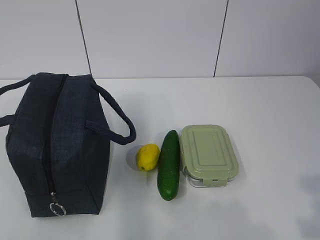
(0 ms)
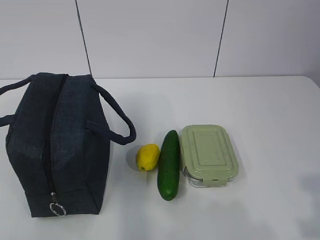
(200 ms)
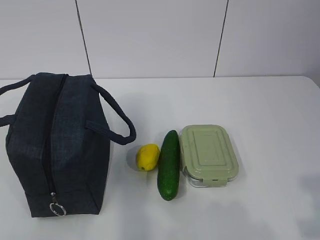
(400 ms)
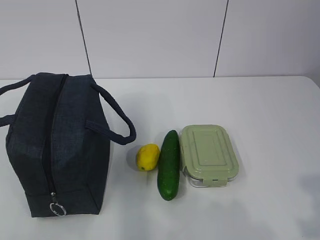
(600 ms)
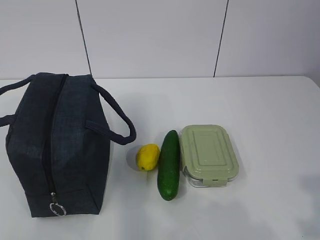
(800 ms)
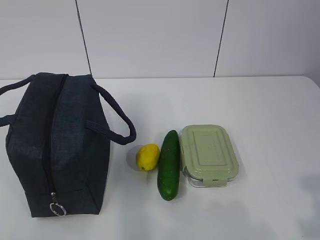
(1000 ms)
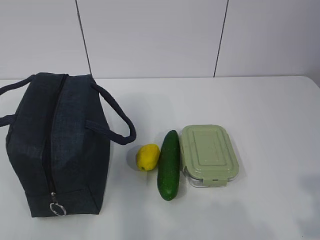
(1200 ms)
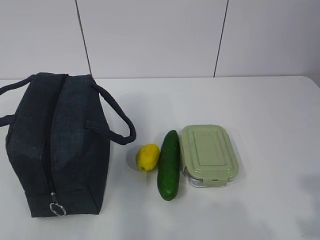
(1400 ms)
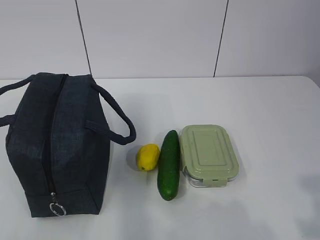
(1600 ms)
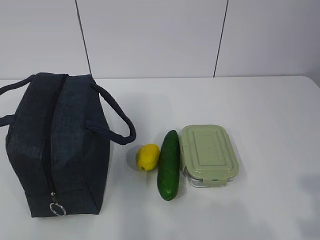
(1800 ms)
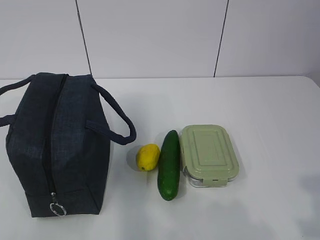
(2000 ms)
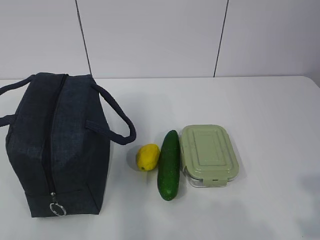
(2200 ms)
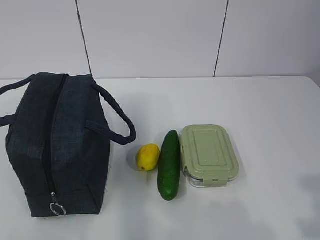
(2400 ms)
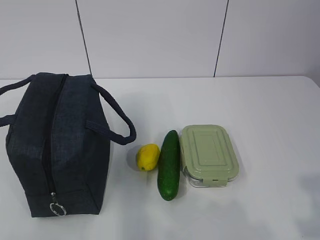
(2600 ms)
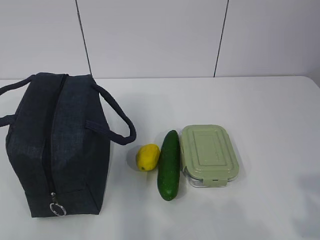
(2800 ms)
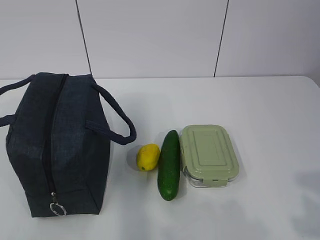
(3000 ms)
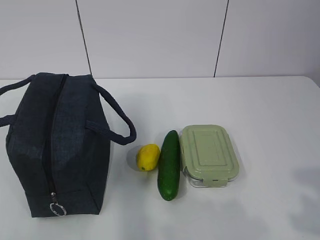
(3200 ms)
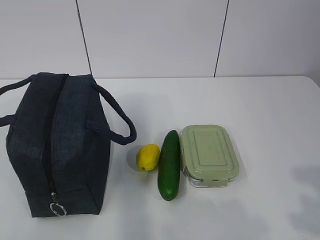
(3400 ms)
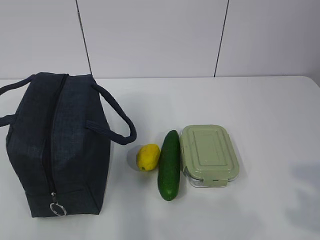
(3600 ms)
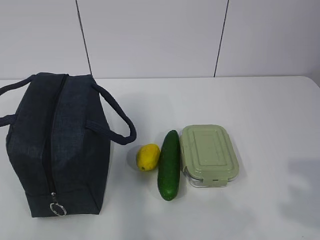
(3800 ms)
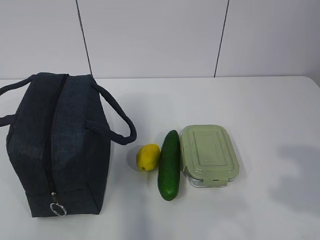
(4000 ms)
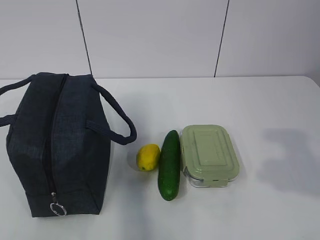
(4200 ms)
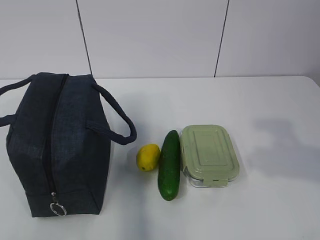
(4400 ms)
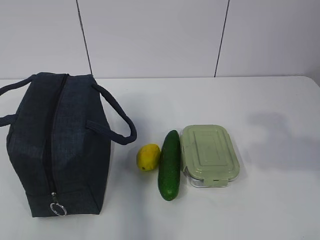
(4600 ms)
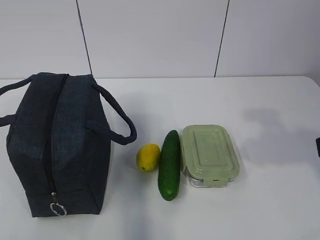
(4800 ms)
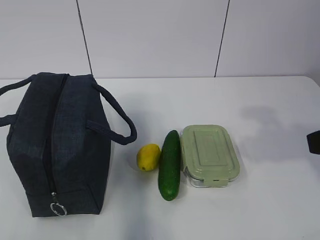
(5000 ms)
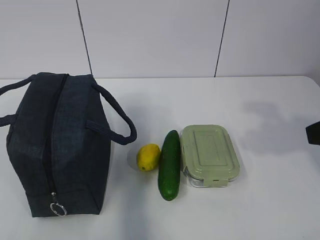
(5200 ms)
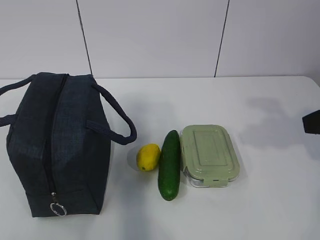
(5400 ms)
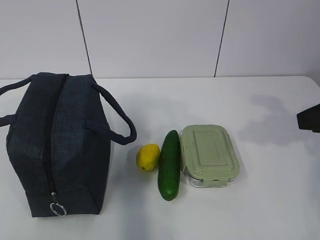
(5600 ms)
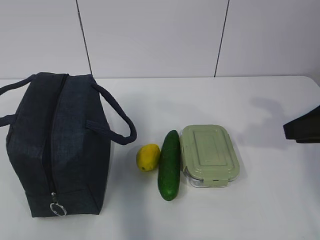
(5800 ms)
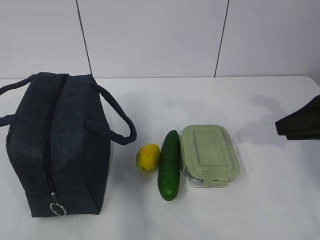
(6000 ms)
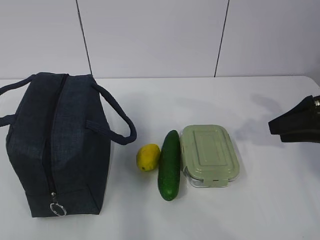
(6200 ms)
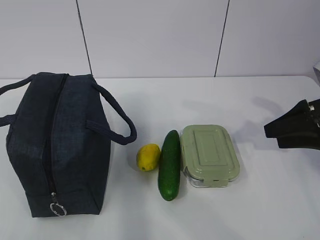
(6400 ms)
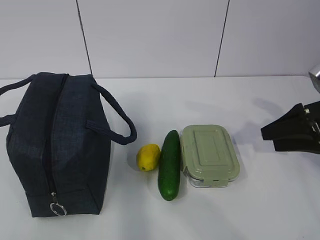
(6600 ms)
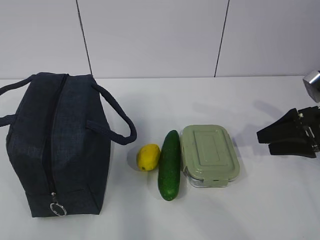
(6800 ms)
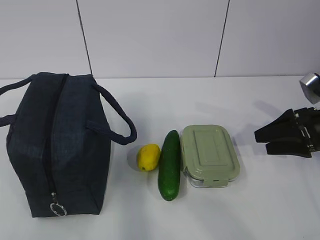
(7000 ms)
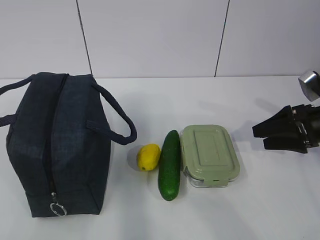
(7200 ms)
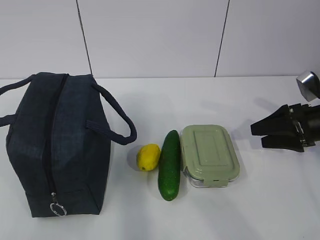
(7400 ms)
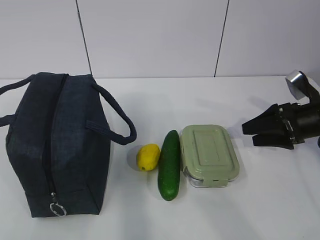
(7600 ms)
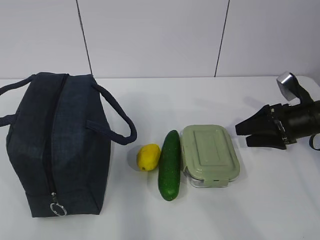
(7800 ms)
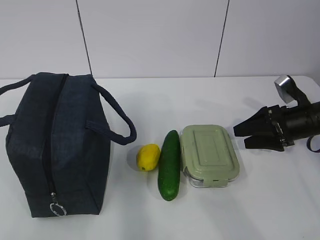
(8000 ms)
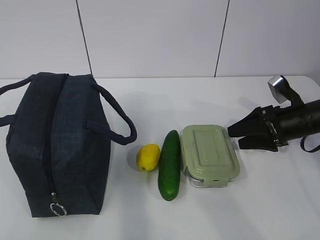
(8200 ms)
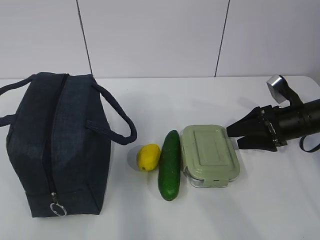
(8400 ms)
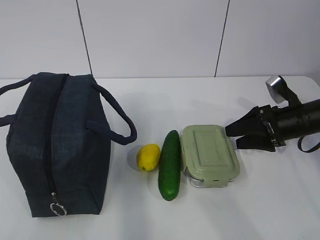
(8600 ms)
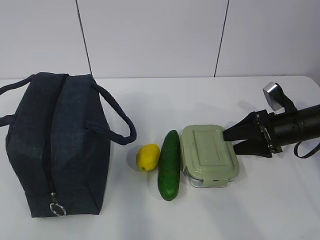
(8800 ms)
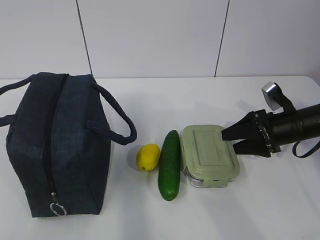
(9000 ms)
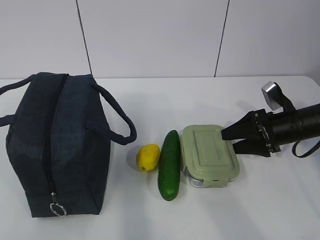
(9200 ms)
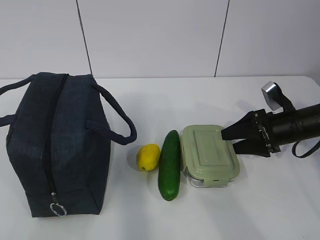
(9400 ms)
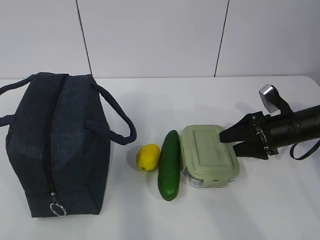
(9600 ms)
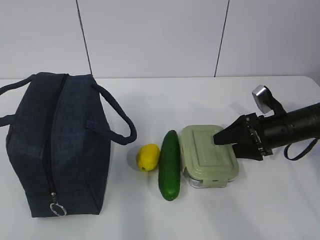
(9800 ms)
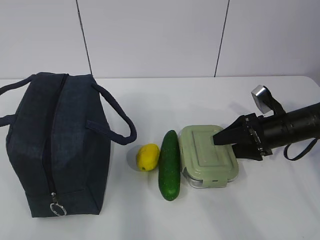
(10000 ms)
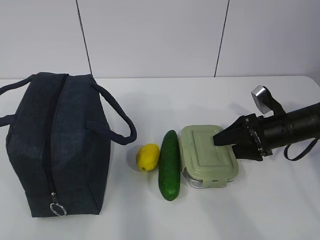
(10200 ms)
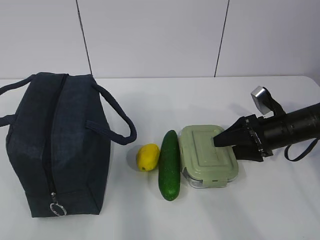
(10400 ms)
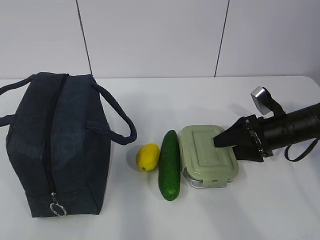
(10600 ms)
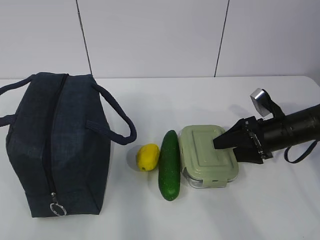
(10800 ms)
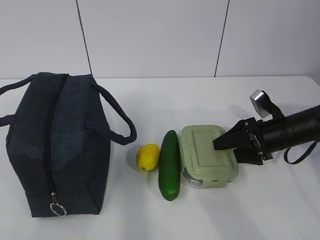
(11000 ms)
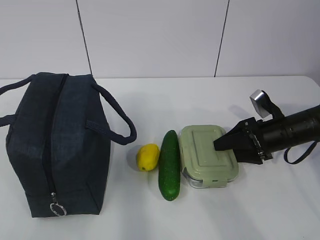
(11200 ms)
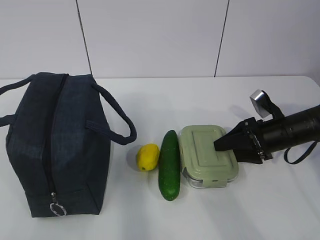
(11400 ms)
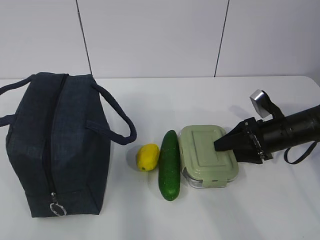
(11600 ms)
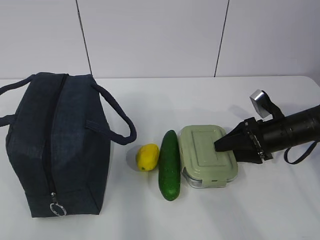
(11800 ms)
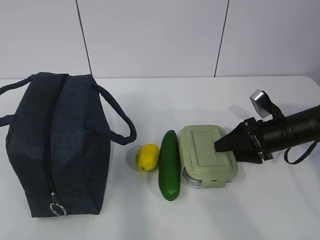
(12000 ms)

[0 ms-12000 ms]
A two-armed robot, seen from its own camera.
1600 ms to 3000 ms: Both grippers stay put.
4400 ms to 6000 ms: The right gripper heads forward and downward, covering some 20 cm.
6000 ms to 7600 ms: The right gripper travels downward and forward by about 15 cm, and opens its fingers.
7600 ms to 9000 ms: The grippers stay close to where they were, moving slightly.
9000 ms to 10400 ms: The grippers stay close to where they were, moving slightly.
10400 ms to 12000 ms: The two grippers keep their place.

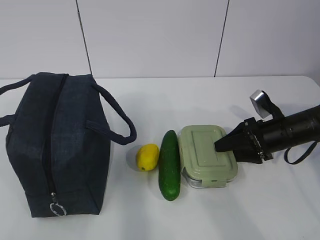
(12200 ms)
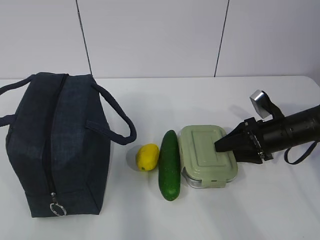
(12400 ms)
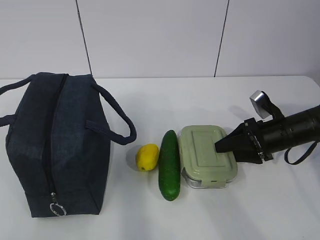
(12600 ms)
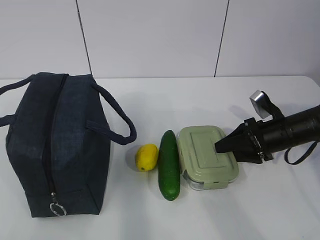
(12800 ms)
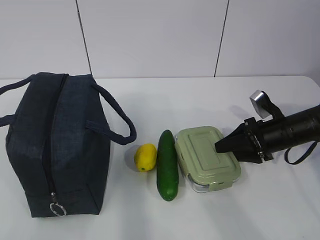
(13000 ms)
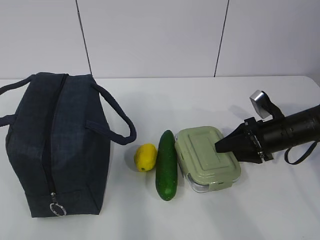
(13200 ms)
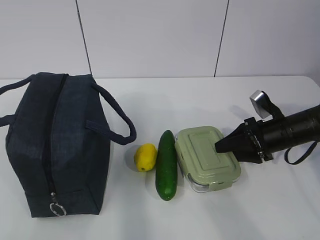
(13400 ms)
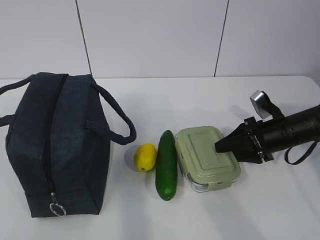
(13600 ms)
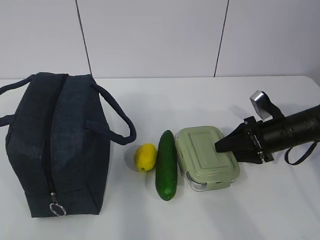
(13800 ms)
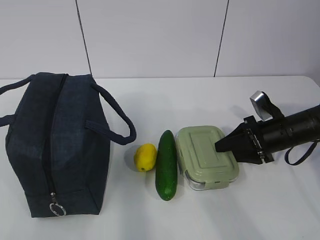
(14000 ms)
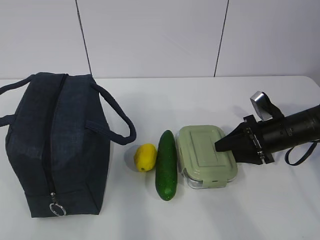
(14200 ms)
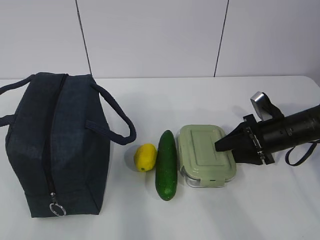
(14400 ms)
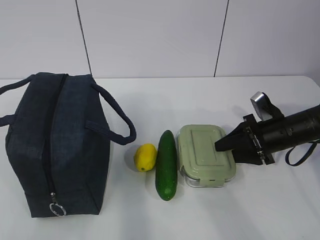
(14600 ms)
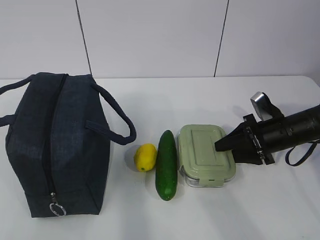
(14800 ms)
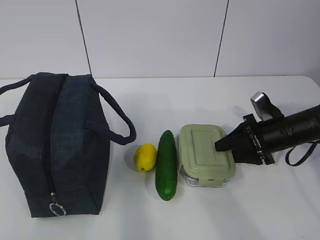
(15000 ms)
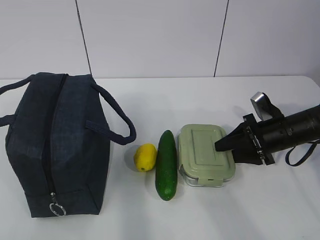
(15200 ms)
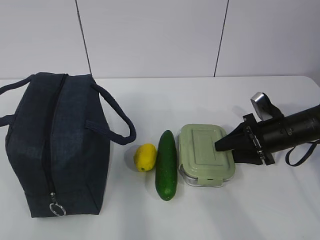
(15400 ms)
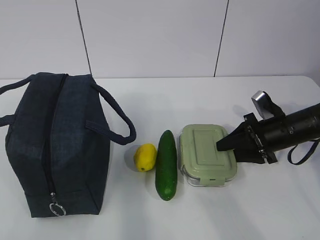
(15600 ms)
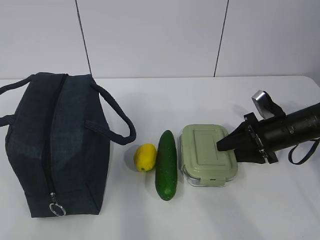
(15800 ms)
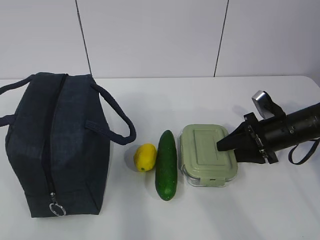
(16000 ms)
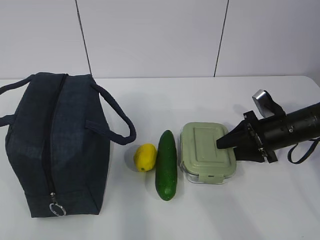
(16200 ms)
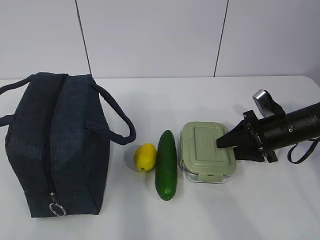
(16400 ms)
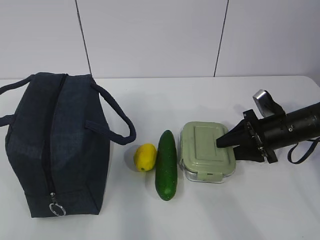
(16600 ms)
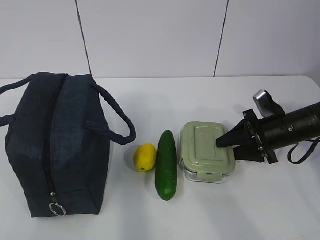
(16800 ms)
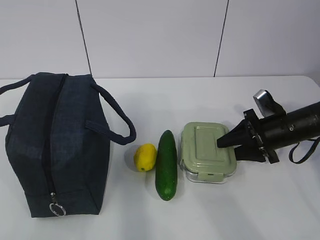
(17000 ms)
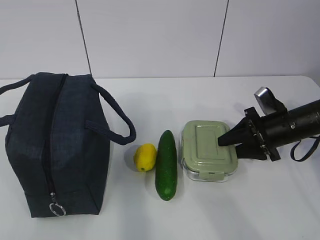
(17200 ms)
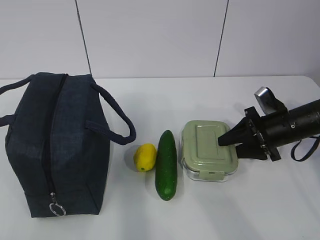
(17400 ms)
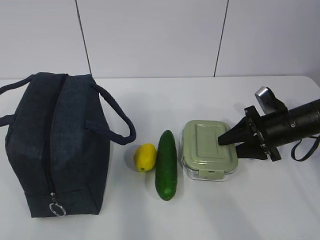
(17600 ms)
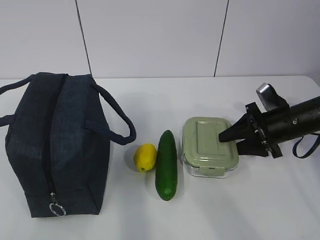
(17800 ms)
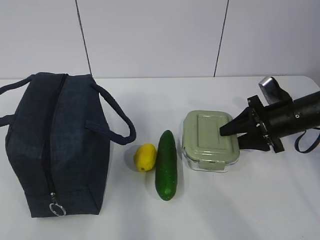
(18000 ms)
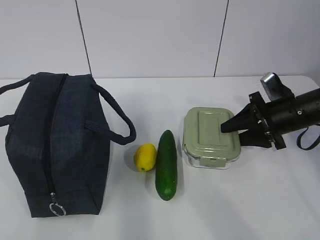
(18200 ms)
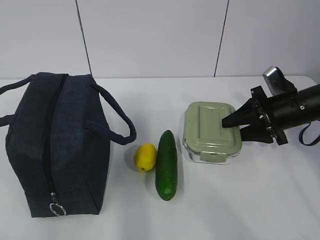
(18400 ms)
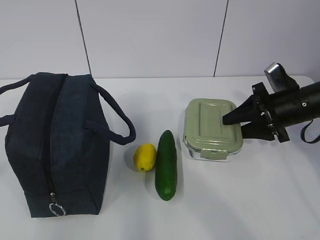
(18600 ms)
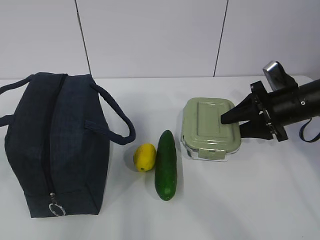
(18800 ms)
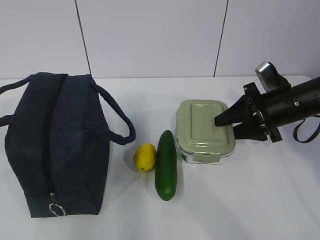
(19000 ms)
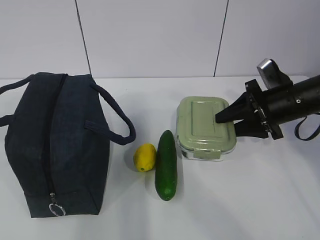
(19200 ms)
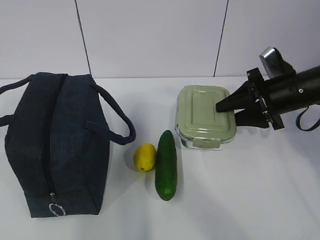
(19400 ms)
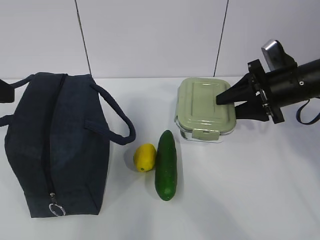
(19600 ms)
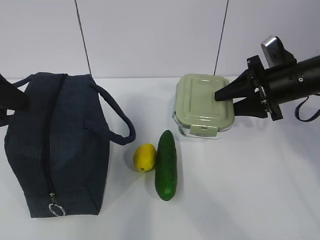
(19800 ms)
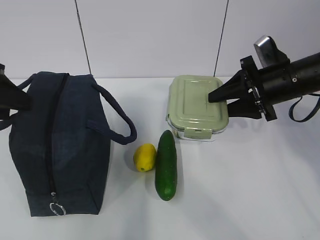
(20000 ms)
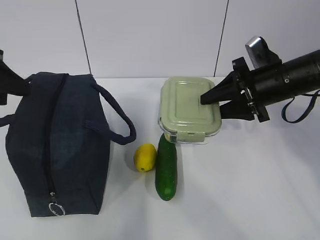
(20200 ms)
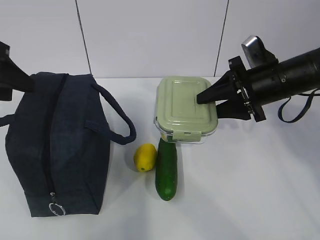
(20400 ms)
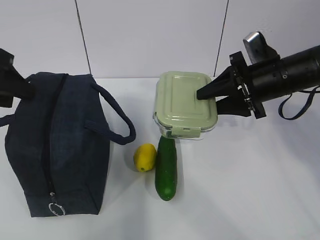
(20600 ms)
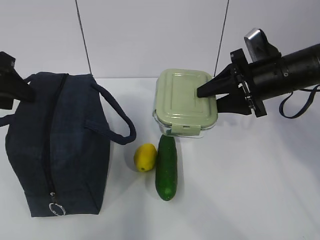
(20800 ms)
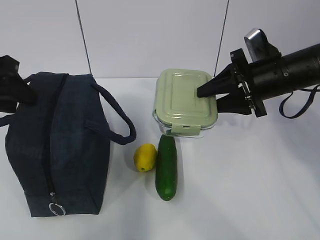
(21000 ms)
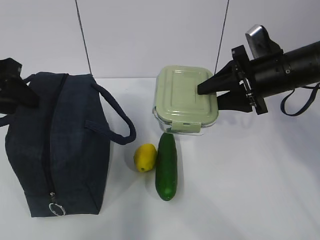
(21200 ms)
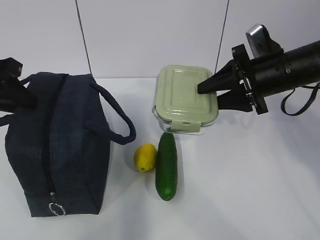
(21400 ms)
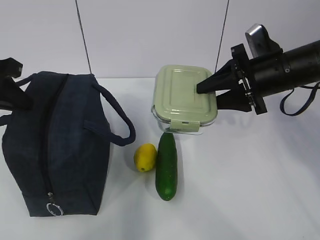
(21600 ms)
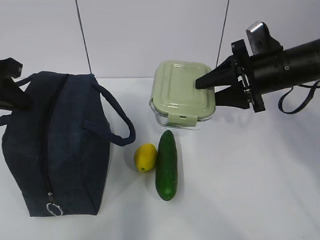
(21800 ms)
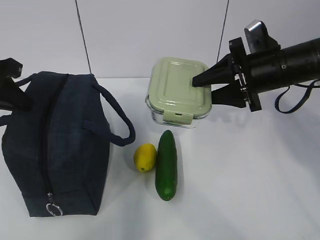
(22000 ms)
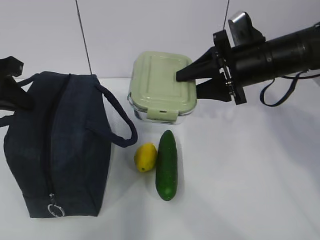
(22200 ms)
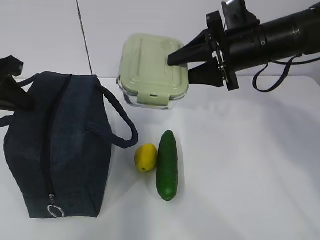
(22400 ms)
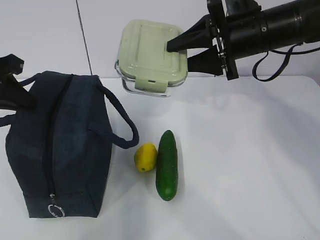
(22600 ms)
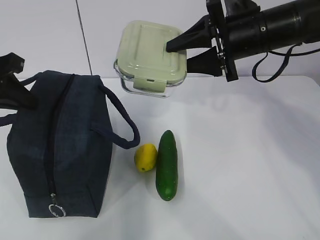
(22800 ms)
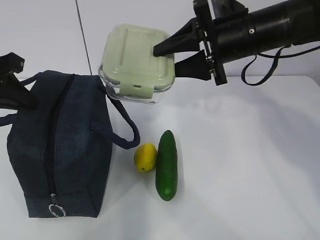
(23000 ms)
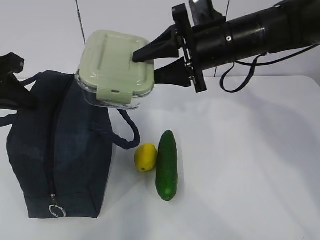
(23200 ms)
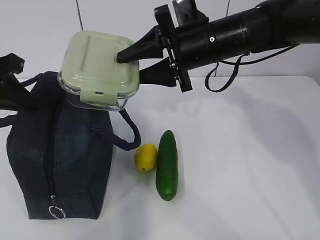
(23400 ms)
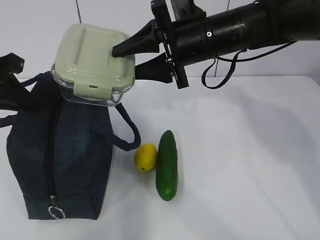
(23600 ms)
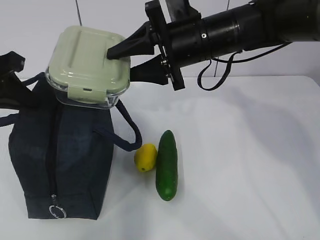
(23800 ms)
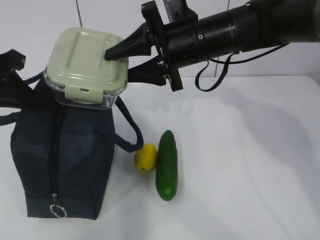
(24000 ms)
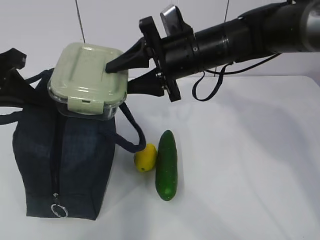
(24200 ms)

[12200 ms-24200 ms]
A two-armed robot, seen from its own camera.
Step, 14800 ms to 20200 ms: Grab the lunch bag with your left hand.
Step, 20400 ms to 23800 ms: Place it into the bag with your right hand.
12200 ms to 13800 ms: Neither gripper changes place.
13800 ms to 15200 ms: There are only small adjustments of the grippers.
15200 ms to 16600 ms: Both grippers stay about where they are.
16600 ms to 18200 ms: The grippers stay close to where they were, moving slightly.
18200 ms to 19800 ms: The right gripper heads upward, covering approximately 5 cm, while the left gripper moves forward, approximately 25 cm.
19800 ms to 21200 ms: The left gripper shifts about 5 cm forward.
21200 ms to 22600 ms: The left gripper closes up. The right gripper shifts about 5 cm upward.
22600 ms to 24200 ms: The right gripper travels to the left by roughly 10 cm.
